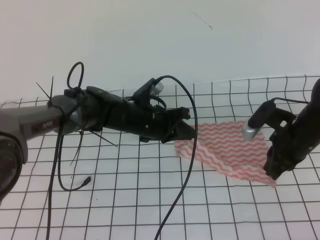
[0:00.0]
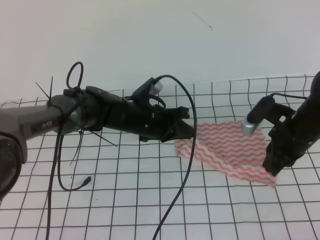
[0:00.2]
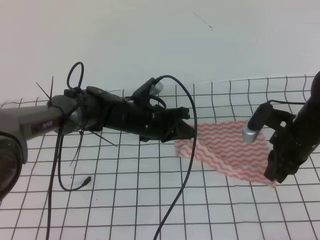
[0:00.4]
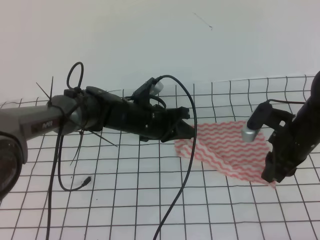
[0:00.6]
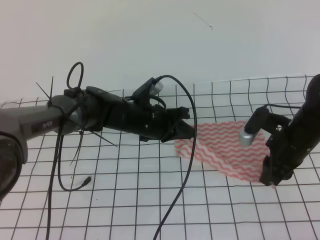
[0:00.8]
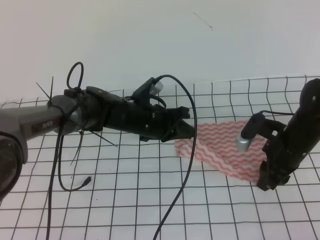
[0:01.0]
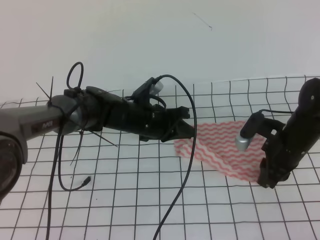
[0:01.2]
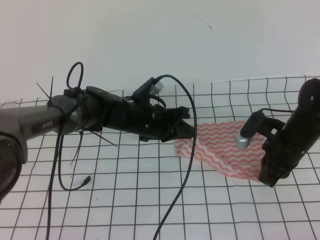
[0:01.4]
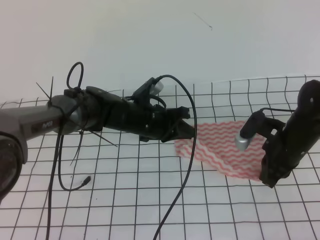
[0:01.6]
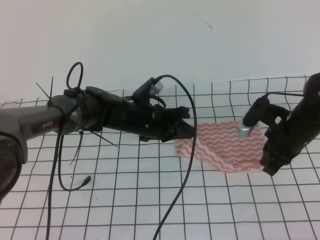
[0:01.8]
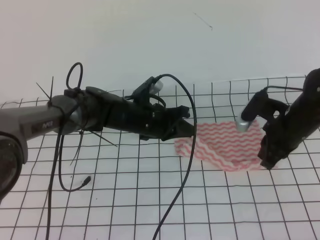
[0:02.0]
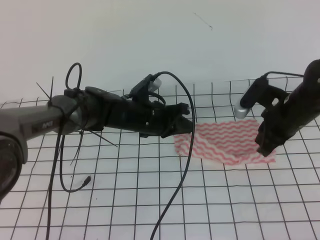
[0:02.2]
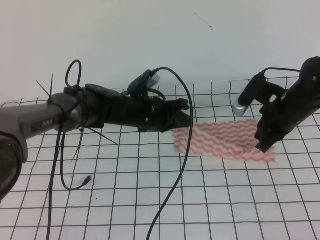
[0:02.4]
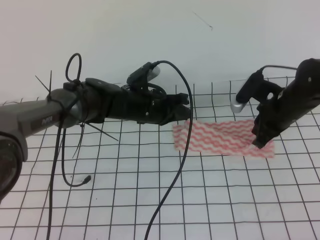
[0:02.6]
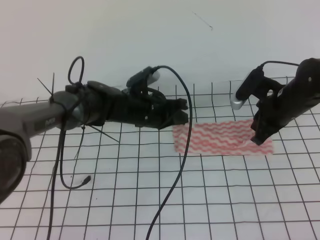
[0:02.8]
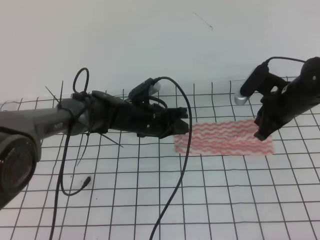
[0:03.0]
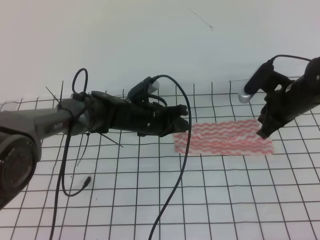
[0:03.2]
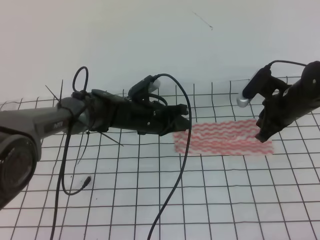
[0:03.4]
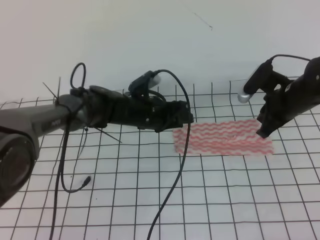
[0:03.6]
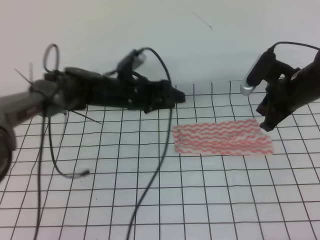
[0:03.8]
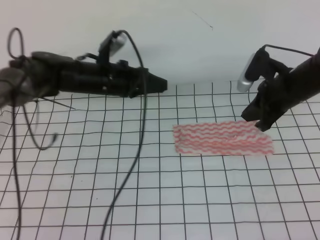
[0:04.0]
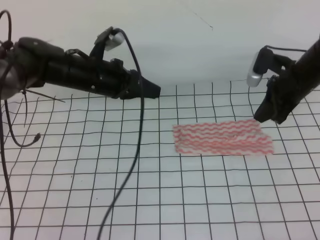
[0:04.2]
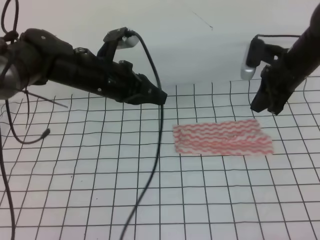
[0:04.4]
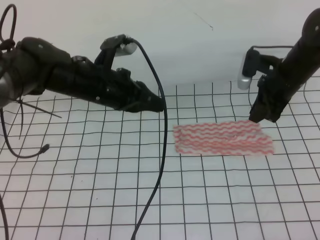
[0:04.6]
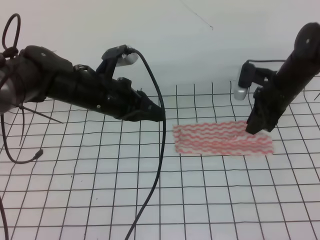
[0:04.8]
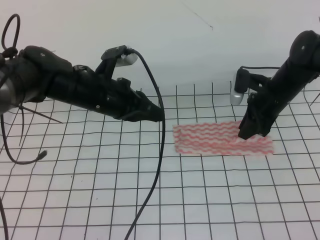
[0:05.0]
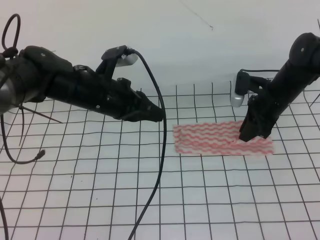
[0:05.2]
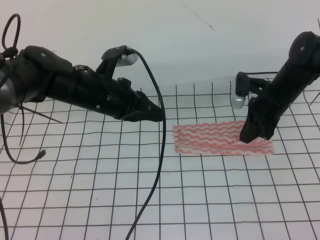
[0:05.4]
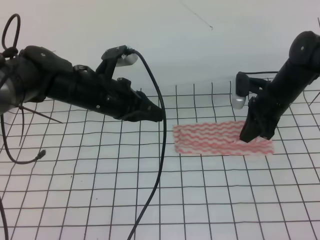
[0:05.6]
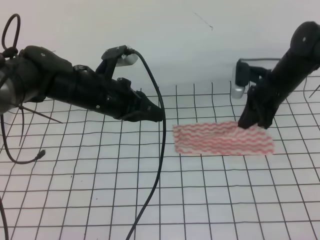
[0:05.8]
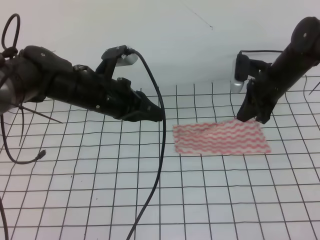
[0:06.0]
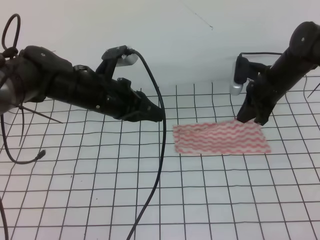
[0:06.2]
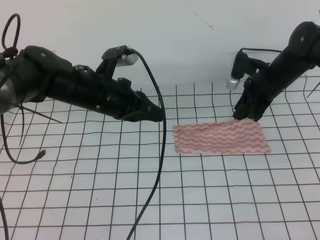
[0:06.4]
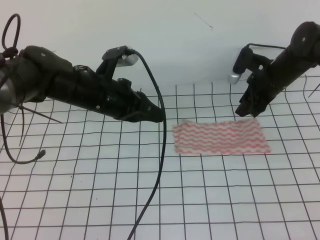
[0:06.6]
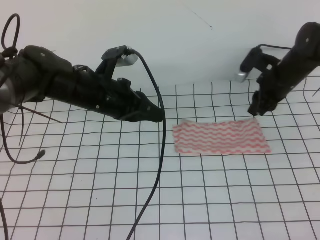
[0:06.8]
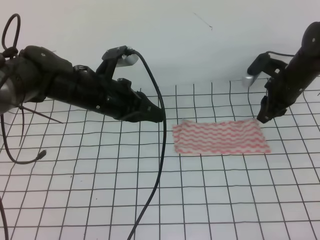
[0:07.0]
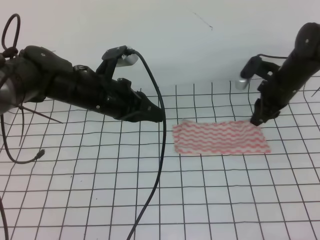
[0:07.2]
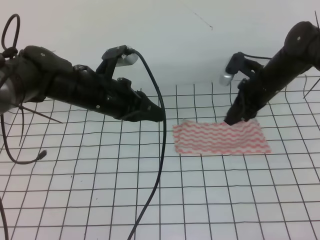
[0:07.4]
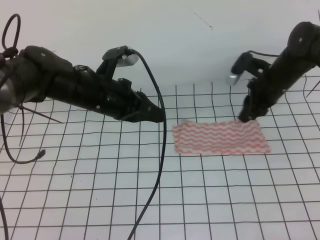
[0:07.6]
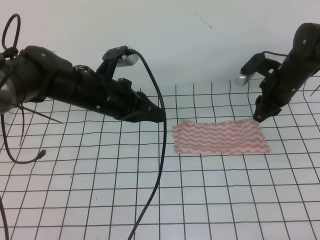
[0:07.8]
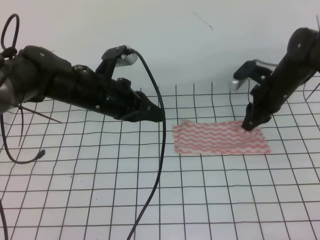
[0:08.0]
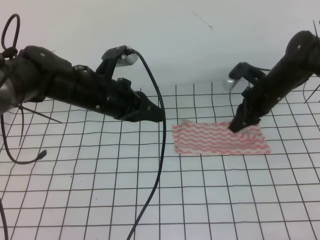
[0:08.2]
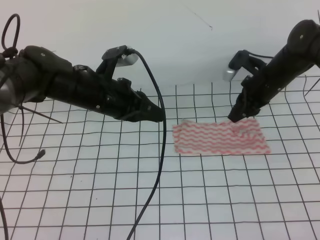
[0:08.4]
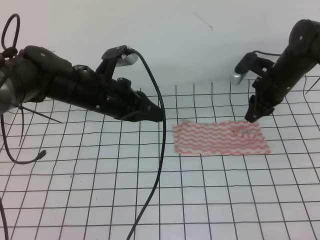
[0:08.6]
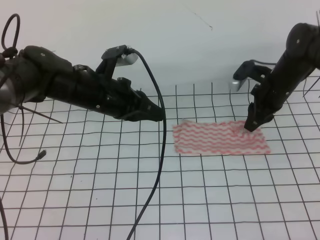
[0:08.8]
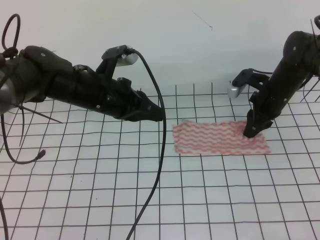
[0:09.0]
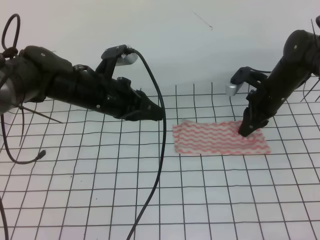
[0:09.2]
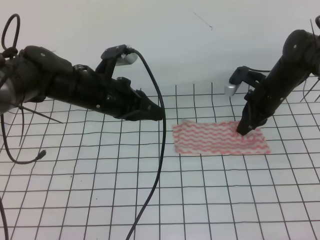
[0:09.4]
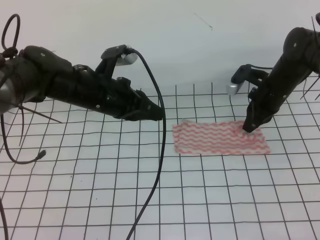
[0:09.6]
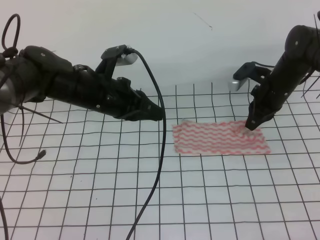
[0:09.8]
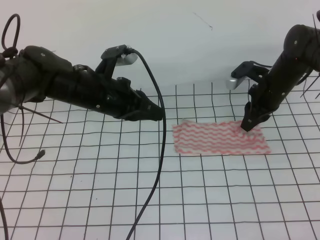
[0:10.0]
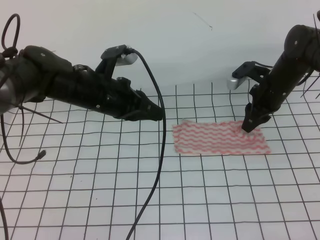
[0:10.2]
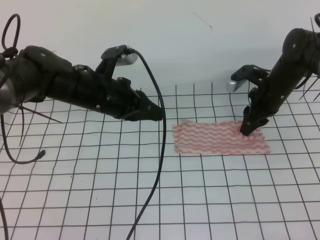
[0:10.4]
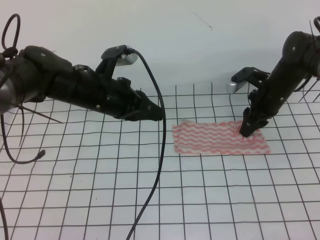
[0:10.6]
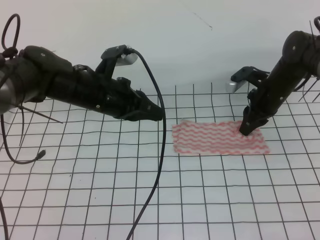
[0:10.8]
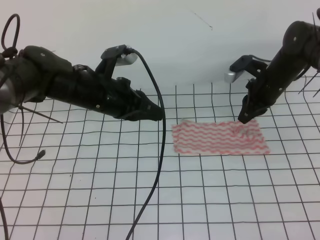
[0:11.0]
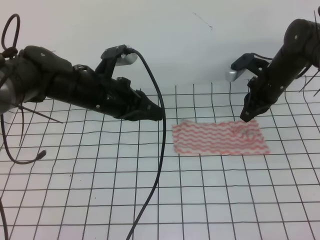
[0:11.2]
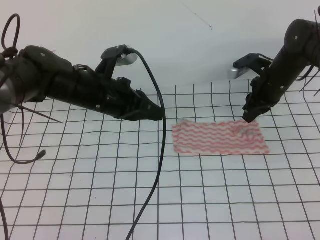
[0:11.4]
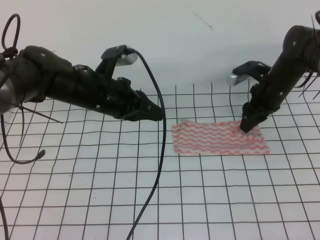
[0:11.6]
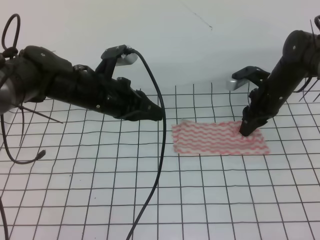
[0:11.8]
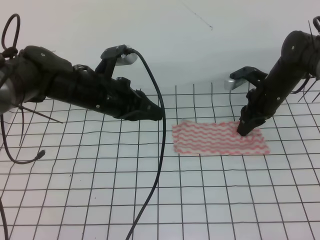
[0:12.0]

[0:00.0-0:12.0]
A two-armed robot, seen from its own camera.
0:00.0 to 0:01.6: The right gripper opens, then closes once more.
0:01.6 to 0:03.0: The right gripper moves forward, about 5 cm.
0:03.0 to 0:04.4: The right gripper changes place by approximately 5 cm, while the left gripper heads upward and to the left, covering about 15 cm, and opens, then closes once more.
0:04.4 to 0:06.0: The right gripper ends up about 5 cm from where it was, and opens, then closes once more.
0:06.0 to 0:07.6: The right gripper opens up.
0:07.6 to 0:09.0: The grippers make only small movements.
0:09.0 to 0:10.4: The right gripper closes, then opens again.
0:10.4 to 0:12.0: The right gripper closes, then opens again.

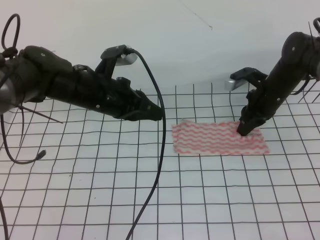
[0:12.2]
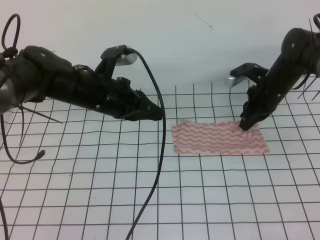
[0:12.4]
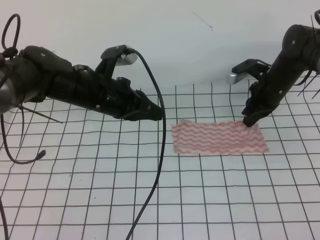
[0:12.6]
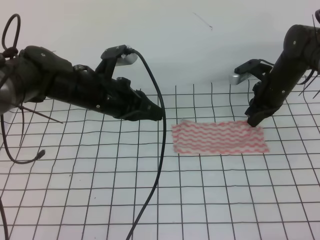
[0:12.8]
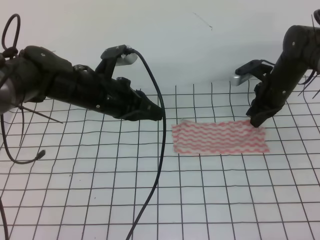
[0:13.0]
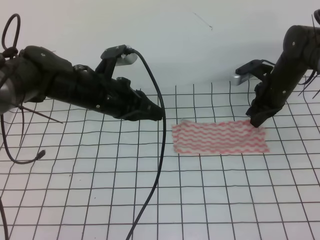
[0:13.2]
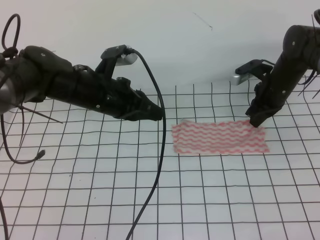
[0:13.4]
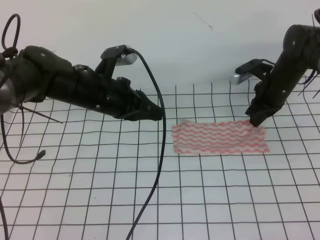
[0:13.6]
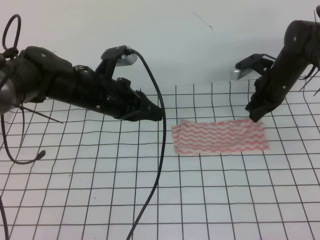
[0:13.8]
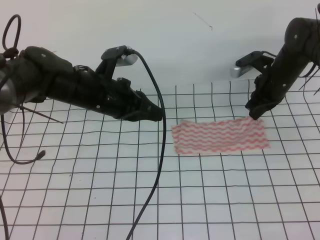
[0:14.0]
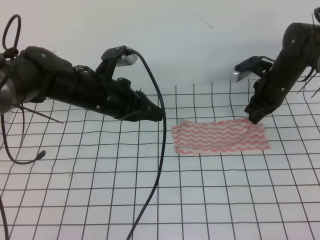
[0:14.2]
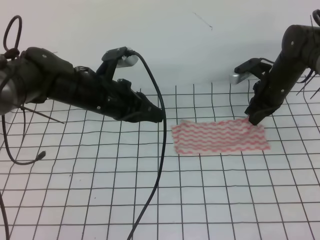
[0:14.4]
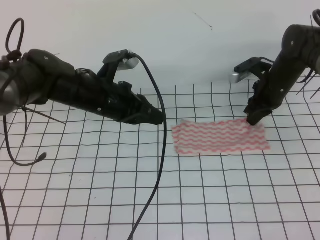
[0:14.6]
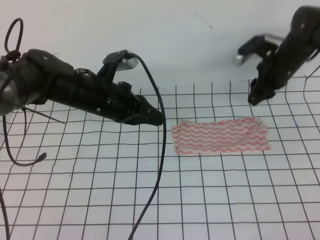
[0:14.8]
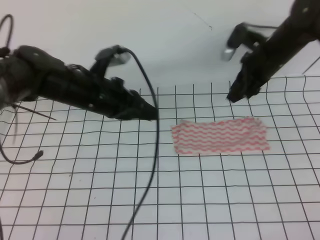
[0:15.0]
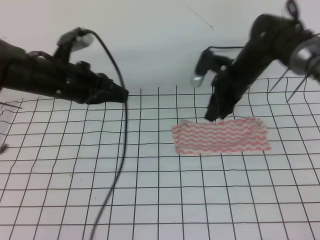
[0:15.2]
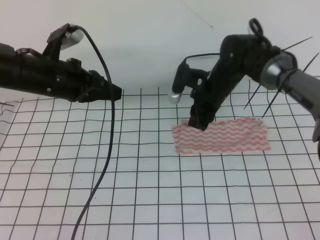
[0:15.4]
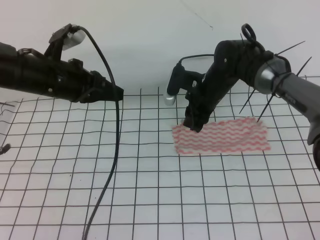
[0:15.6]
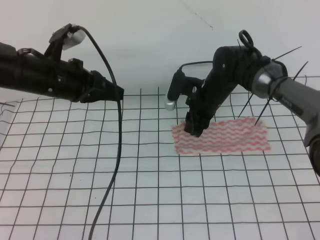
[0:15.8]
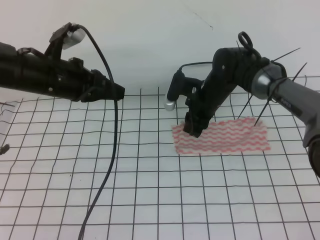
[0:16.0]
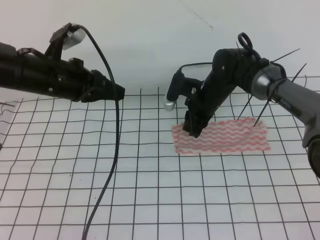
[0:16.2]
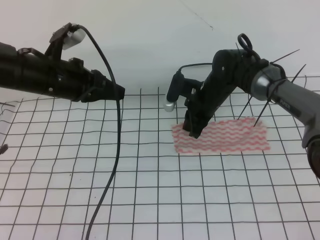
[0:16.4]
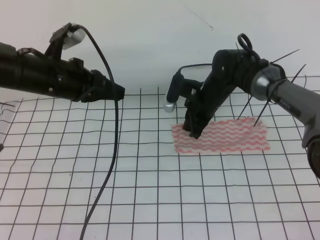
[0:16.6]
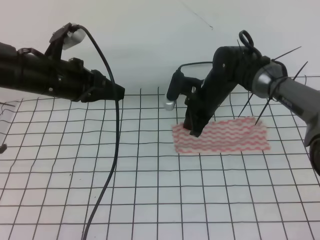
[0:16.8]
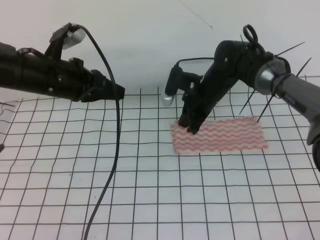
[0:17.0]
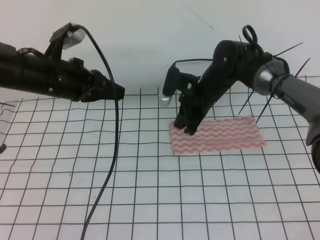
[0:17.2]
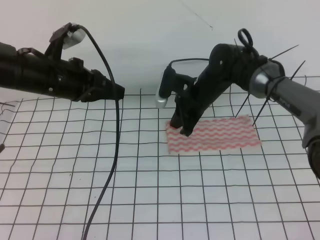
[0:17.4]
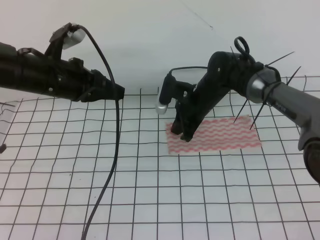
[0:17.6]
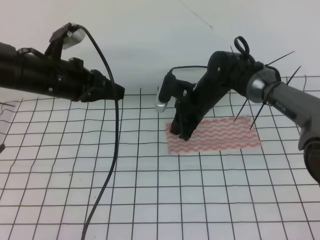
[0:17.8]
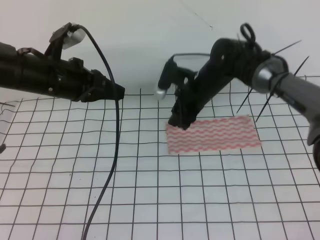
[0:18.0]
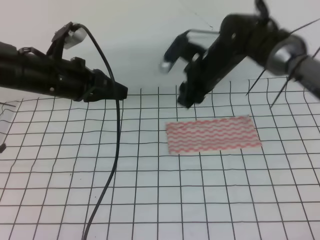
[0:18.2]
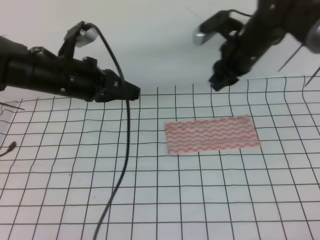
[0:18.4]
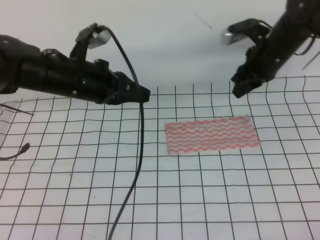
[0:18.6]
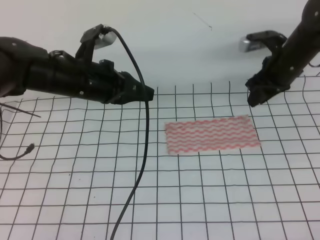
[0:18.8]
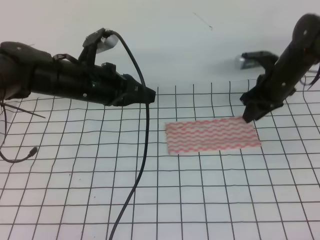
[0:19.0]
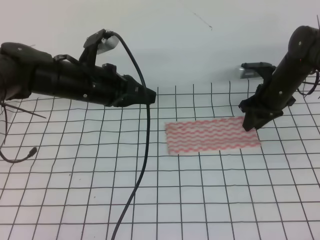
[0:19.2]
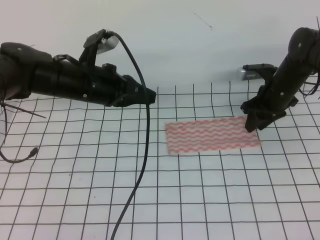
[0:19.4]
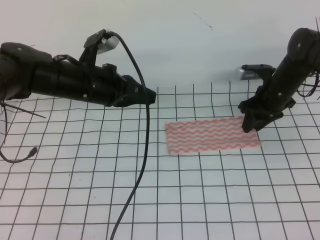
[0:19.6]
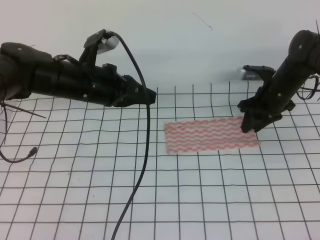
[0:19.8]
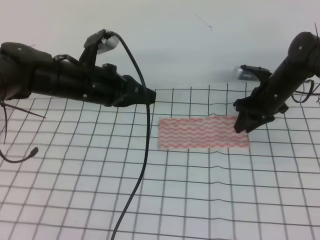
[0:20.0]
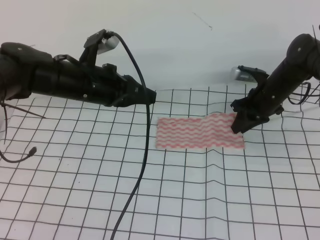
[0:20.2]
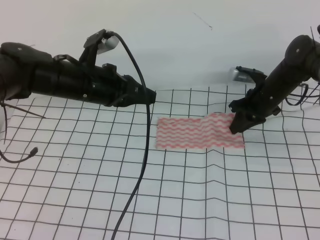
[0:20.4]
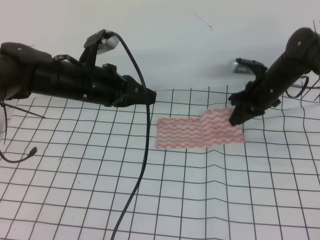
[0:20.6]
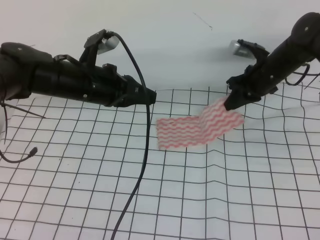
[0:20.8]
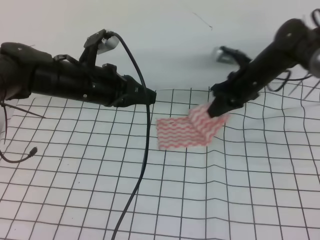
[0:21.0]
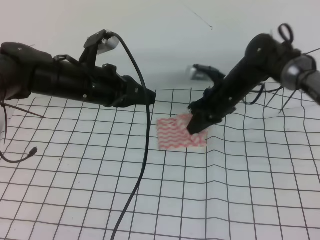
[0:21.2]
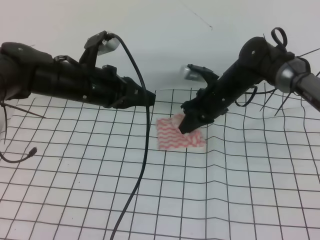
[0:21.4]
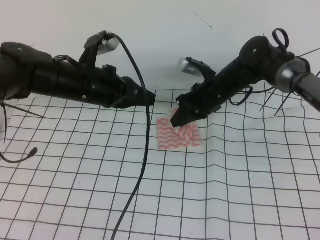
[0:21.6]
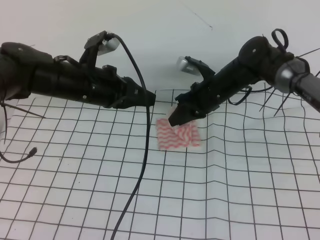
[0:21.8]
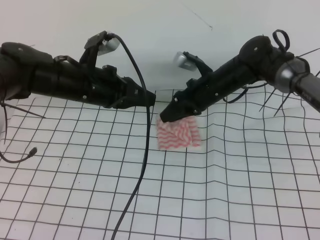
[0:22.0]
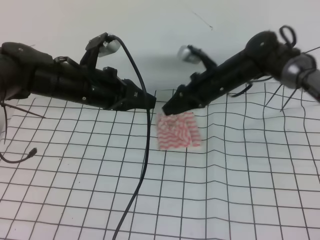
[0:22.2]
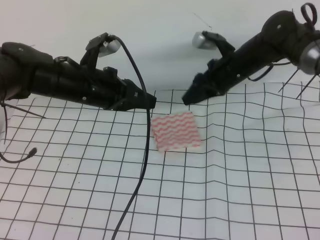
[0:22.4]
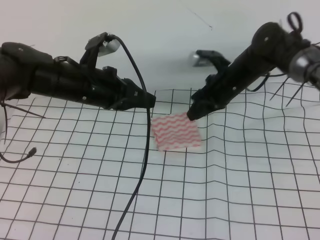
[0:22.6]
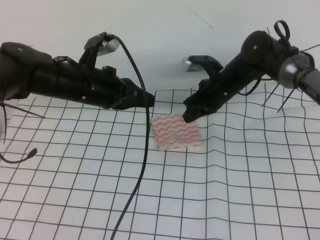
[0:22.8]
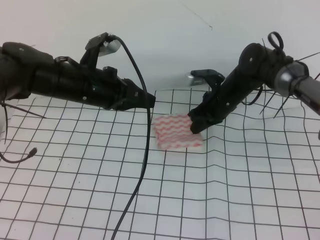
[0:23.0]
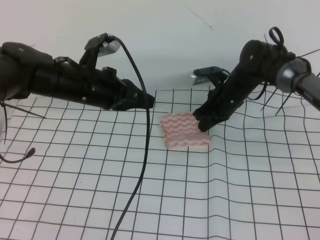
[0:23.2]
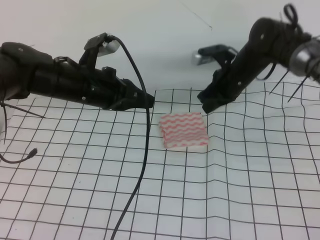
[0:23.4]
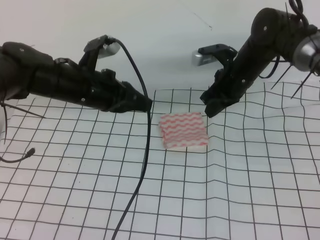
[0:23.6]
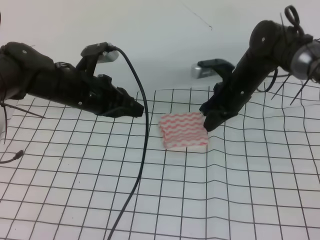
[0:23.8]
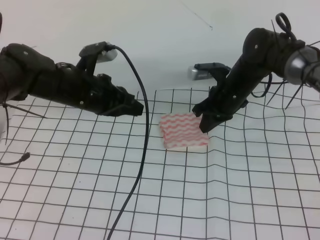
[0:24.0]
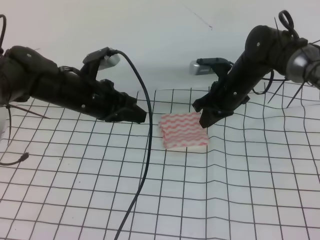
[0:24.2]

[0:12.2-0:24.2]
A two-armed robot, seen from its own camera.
0:12.2 to 0:13.8: The right gripper closes.
0:13.8 to 0:15.2: The right gripper goes about 10 cm to the left, and opens its fingers, while the left gripper shifts by roughly 5 cm.
0:15.2 to 0:16.6: The right gripper heads to the left and downward, covering some 10 cm, and closes its fingers.
0:16.6 to 0:18.2: The right gripper is displaced upward by some 10 cm, and opens.
0:18.2 to 0:19.8: The right gripper goes some 15 cm to the right and downward.
0:19.8 to 0:21.2: The right gripper travels to the left by about 10 cm, and closes.
0:21.2 to 0:22.6: The right gripper opens.
0:22.6 to 0:24.2: The right gripper closes.
